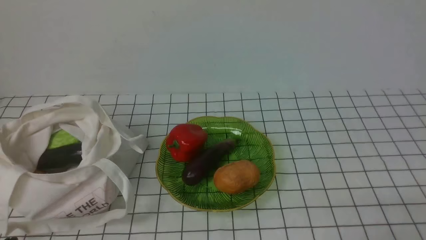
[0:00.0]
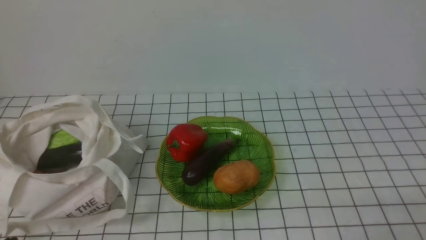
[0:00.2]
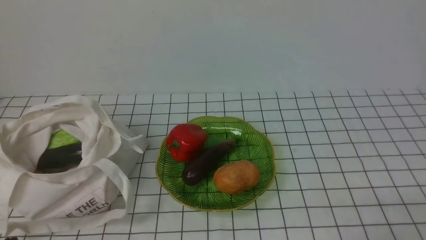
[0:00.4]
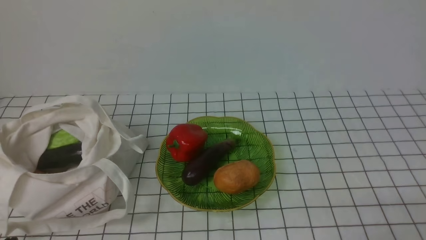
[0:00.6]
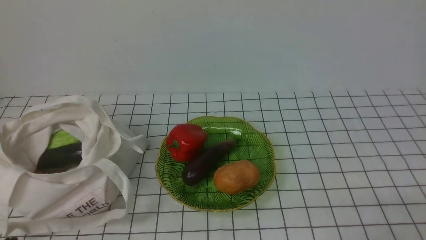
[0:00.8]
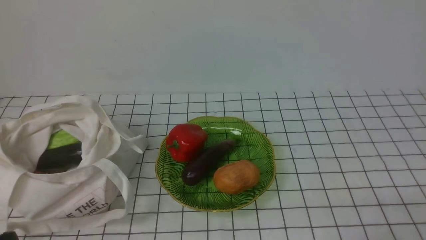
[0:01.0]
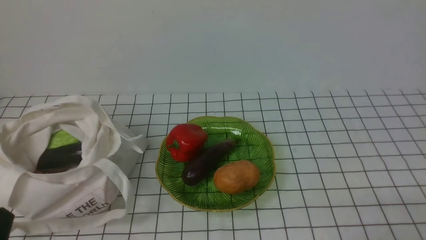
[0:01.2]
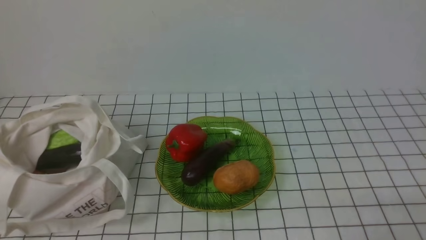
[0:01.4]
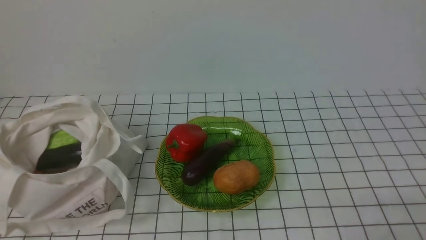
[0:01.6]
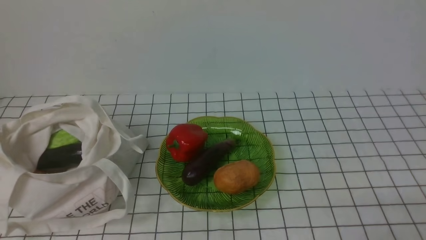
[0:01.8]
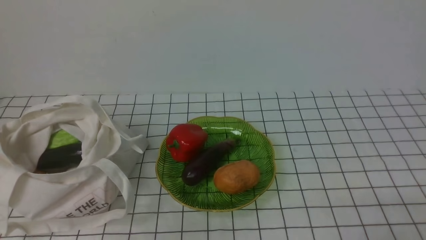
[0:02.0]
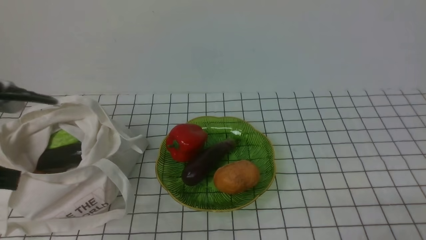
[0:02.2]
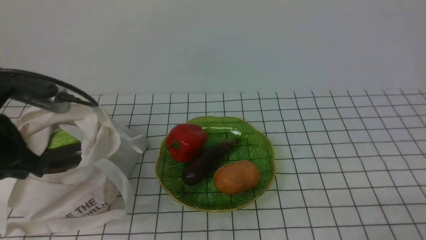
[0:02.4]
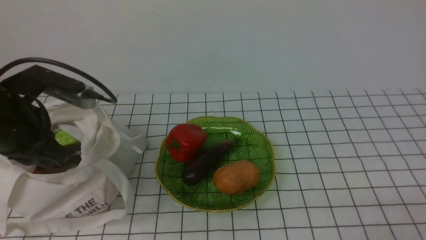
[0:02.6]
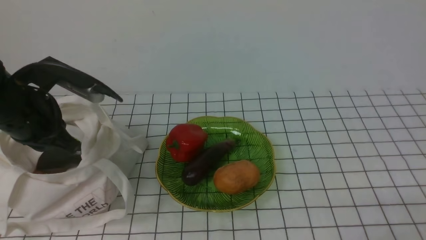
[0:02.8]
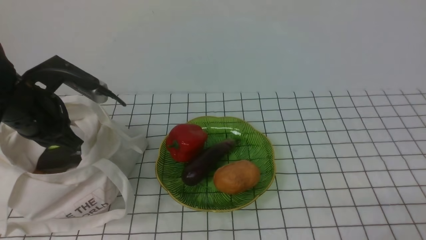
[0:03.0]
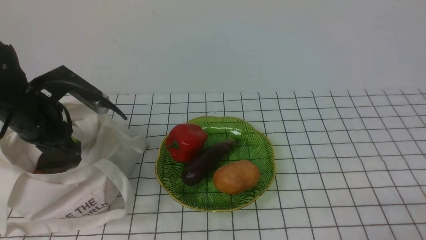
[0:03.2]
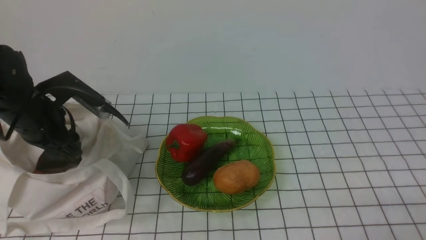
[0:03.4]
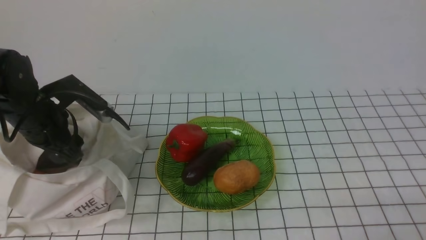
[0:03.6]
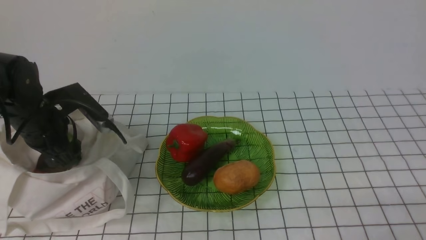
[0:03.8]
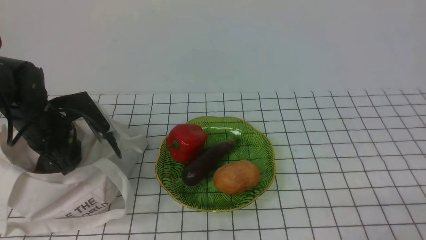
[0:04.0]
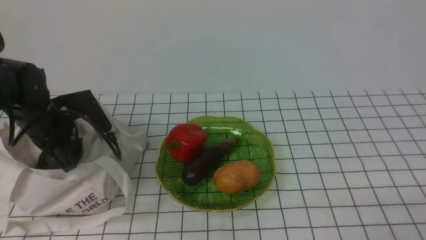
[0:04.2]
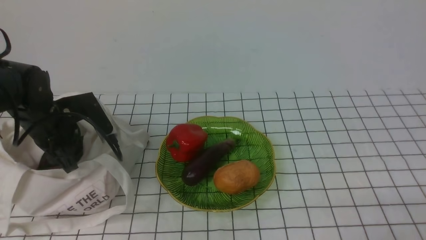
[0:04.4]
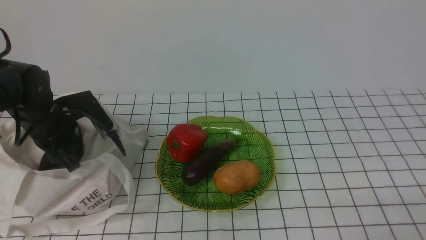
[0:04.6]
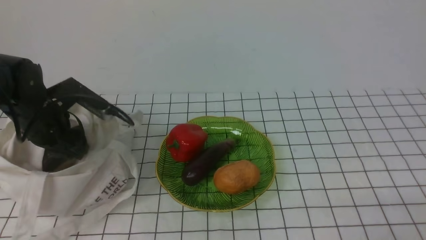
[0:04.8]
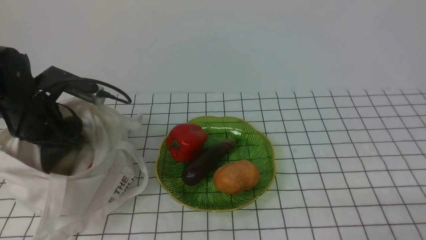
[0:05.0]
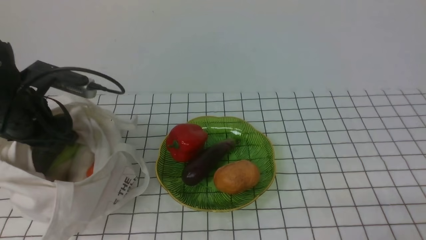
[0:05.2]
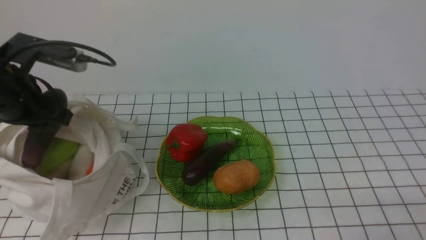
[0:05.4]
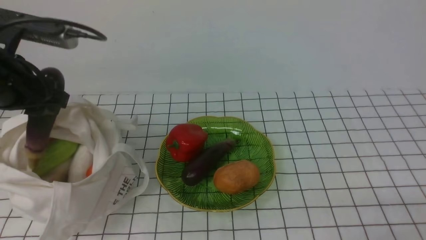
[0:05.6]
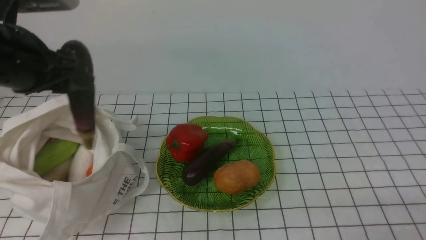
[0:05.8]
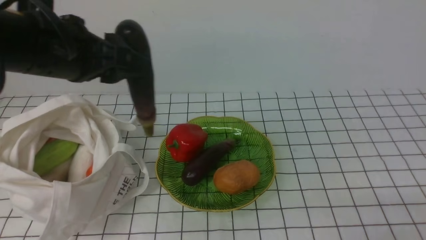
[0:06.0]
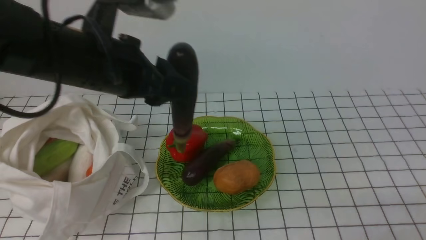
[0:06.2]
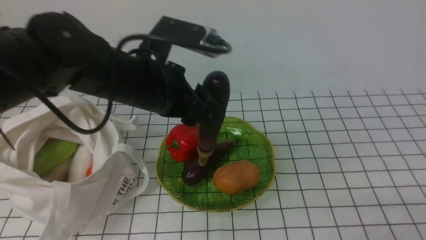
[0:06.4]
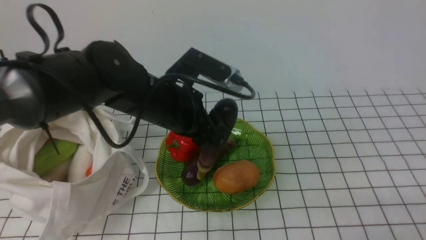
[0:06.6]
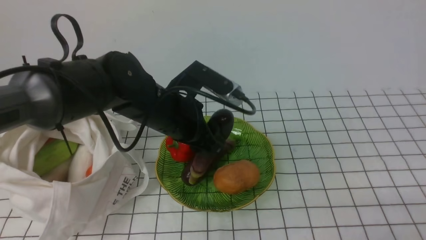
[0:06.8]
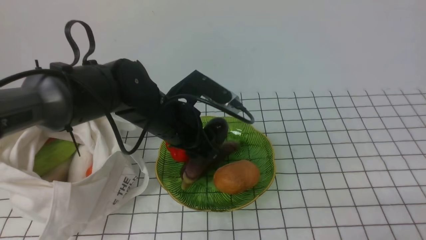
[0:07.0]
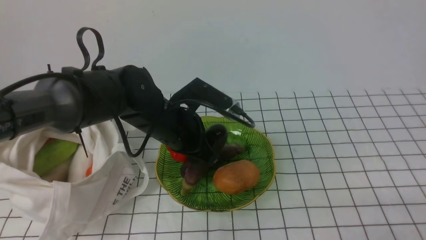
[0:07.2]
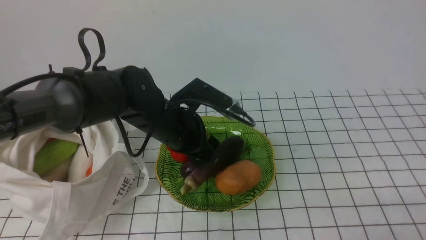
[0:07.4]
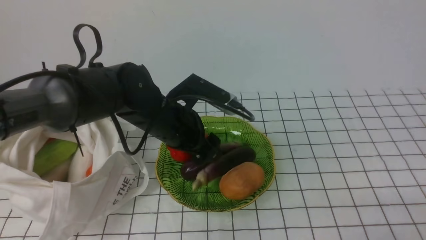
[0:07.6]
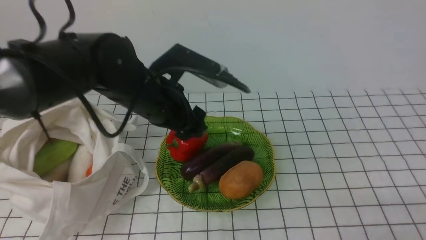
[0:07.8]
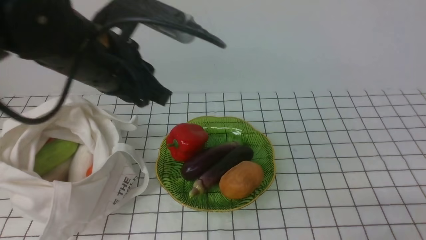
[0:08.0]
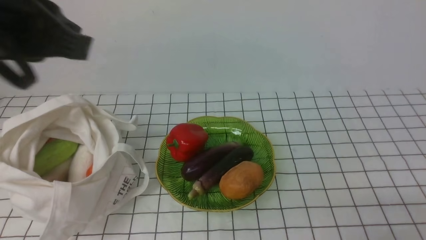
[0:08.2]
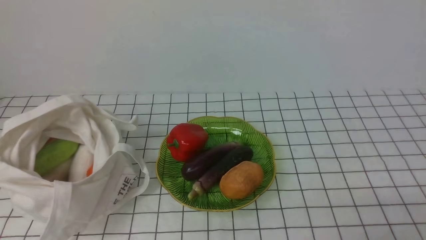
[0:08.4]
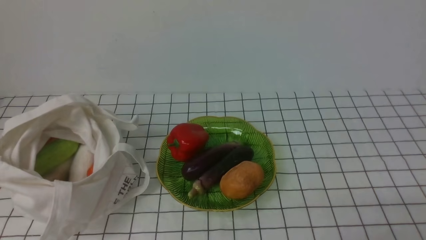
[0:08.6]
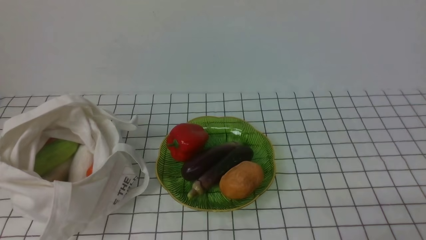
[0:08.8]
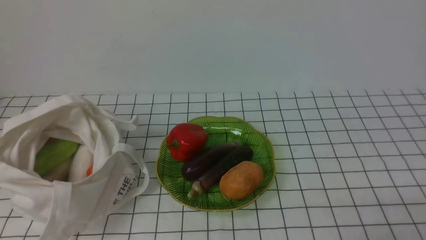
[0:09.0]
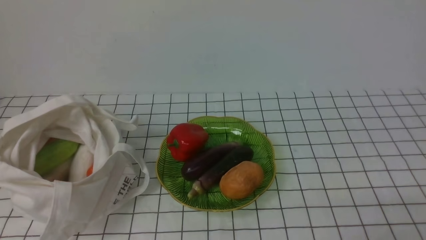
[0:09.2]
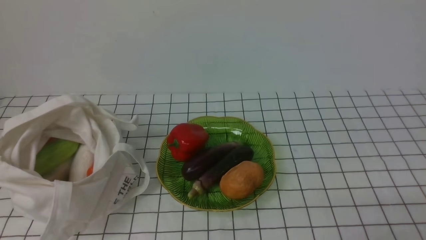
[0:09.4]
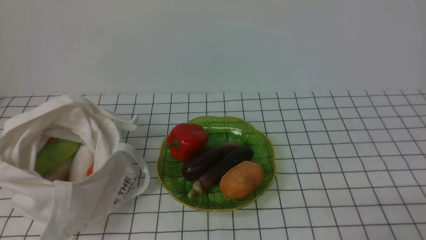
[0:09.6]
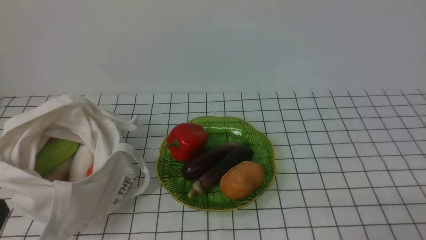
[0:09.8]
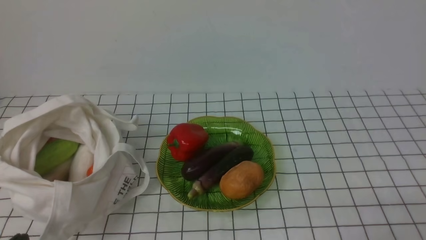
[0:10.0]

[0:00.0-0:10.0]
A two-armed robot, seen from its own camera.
Task of the whole recording: take vegetables from bag on white checkered tablecloth place on plate.
Step, 0:00.0 to 0:04.6: Grasp the eggplant with left gripper.
Step, 0:04.8 to 0:07.6: Place the eggplant on the plate with left gripper.
0:01.4 to 0:02.8: The left gripper heads forward and upward, covering about 25 cm.
0:02.8 to 0:04.2: The left gripper travels downward and forward by about 10 cm, and opens its fingers.
0:04.2 to 0:05.8: The left gripper is displaced upward and backward by some 15 cm.
0:05.8 to 0:07.2: The left gripper goes about 20 cm to the right and downward.
0:07.2 to 0:08.6: The left gripper shifts roughly 40 cm backward, upward and to the left, and closes up.

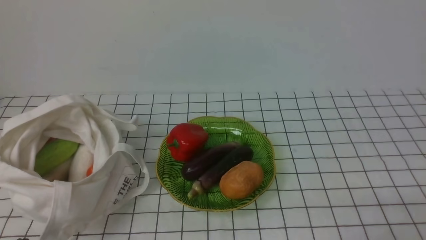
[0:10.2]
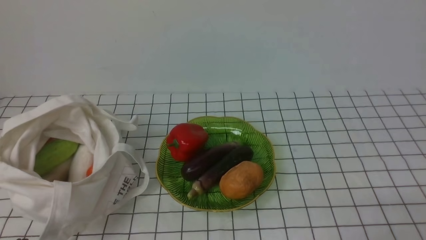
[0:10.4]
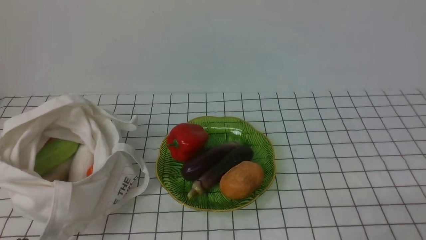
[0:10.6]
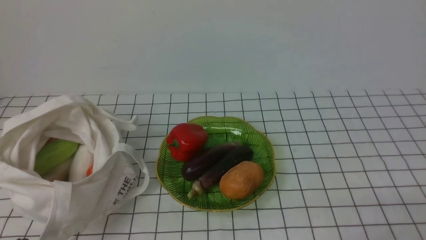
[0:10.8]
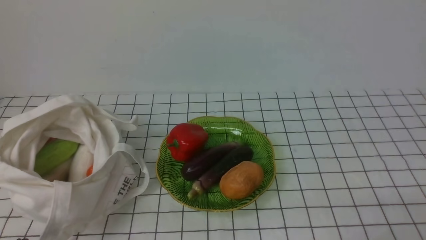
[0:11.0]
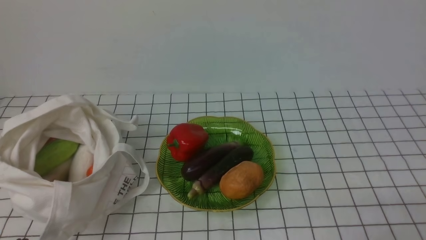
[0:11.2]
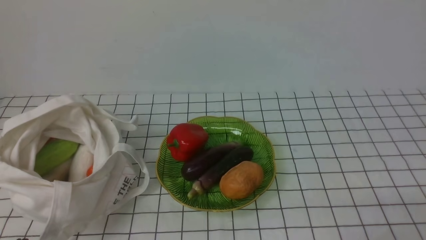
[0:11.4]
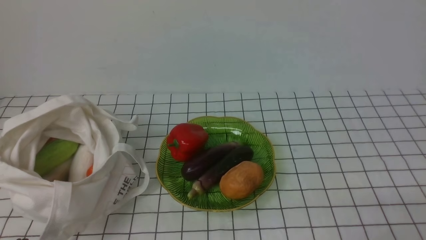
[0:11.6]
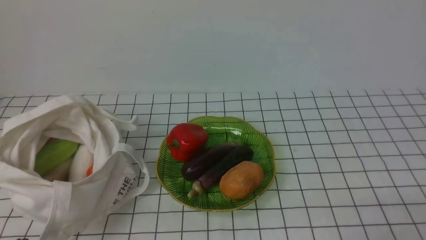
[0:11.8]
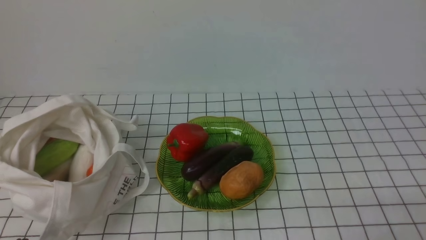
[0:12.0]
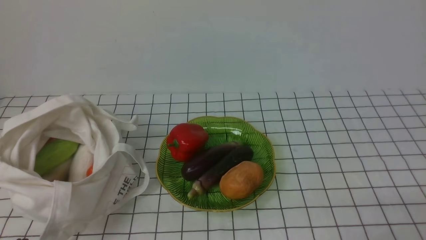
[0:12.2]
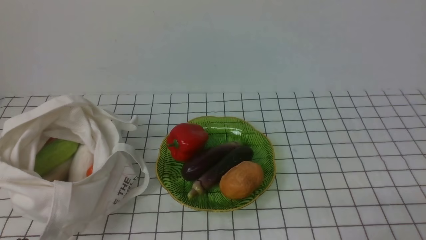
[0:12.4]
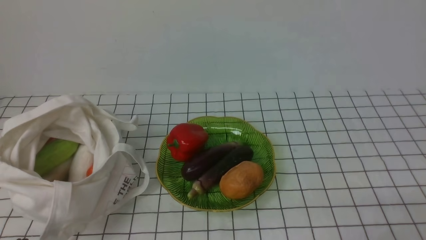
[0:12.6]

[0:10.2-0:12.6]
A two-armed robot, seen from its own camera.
Task of the whole recording: take vegetables from bag on white checkered tablecloth place on plate.
0:11.4 to 0:12.6: The two grippers keep their place.
